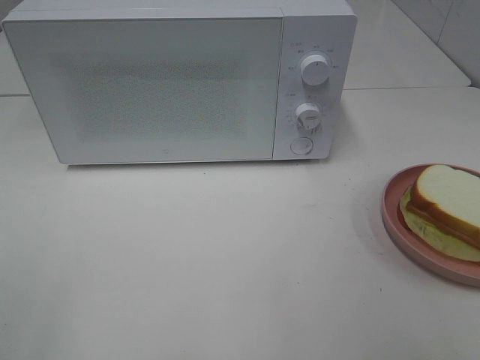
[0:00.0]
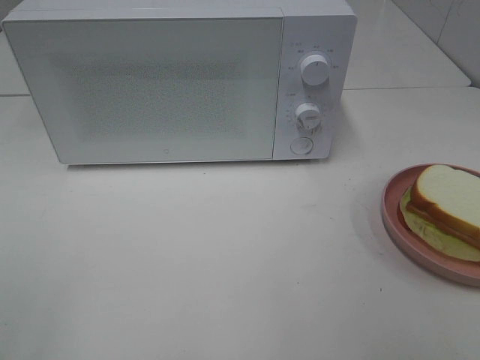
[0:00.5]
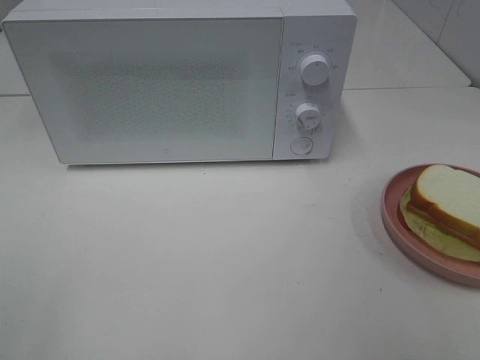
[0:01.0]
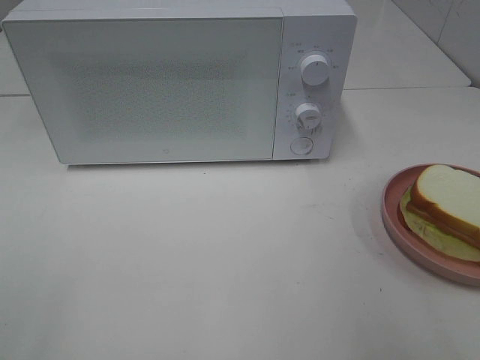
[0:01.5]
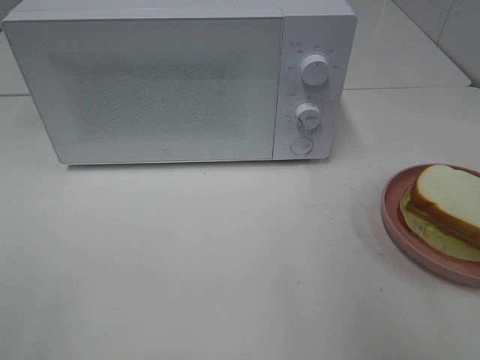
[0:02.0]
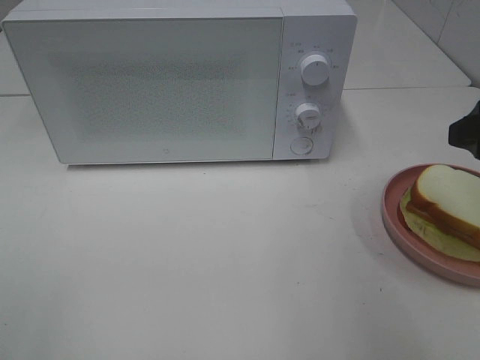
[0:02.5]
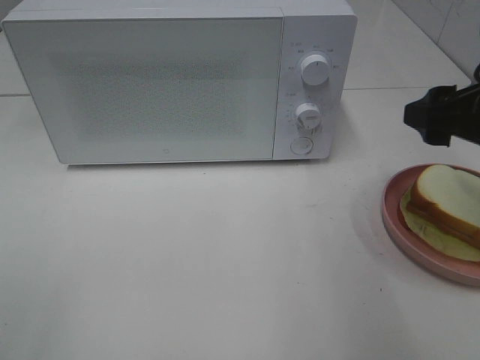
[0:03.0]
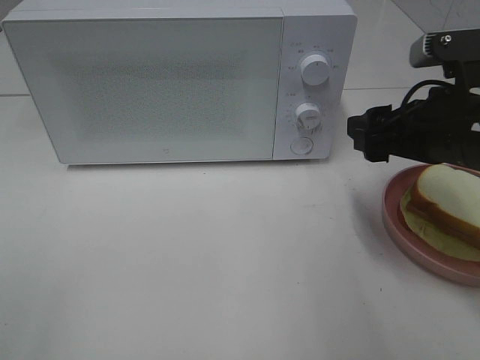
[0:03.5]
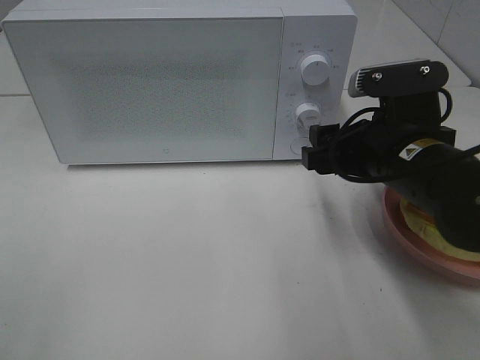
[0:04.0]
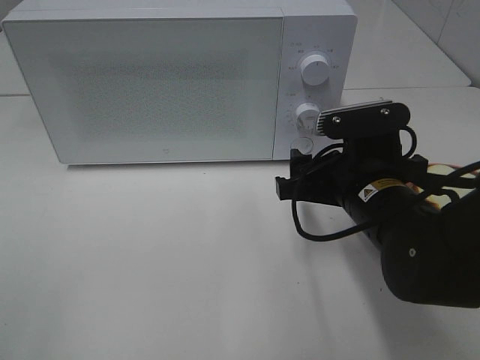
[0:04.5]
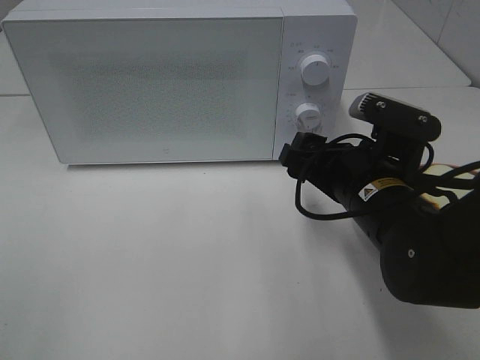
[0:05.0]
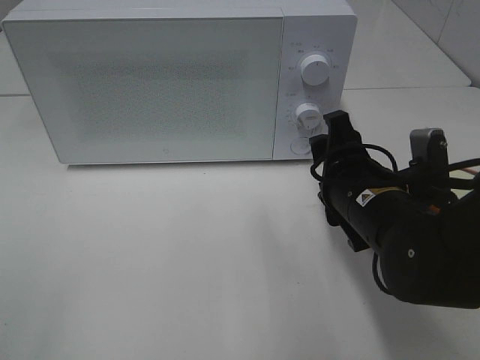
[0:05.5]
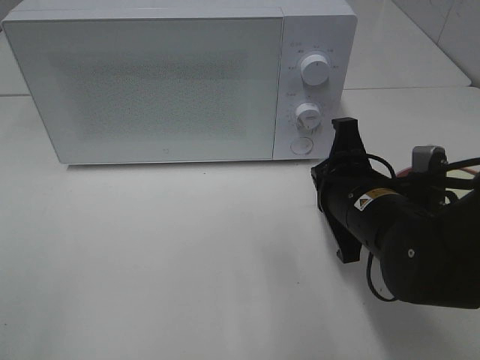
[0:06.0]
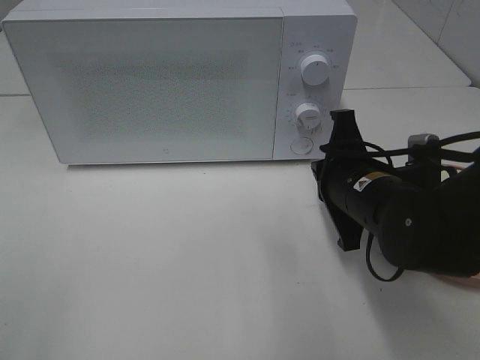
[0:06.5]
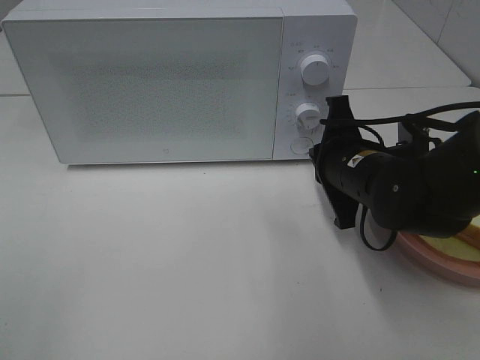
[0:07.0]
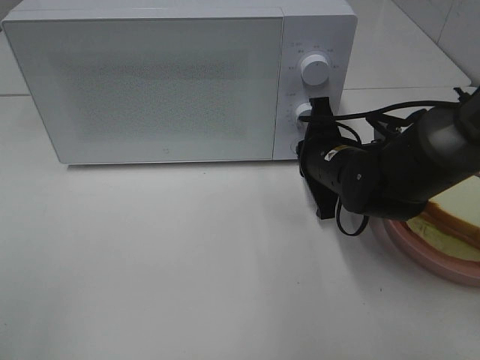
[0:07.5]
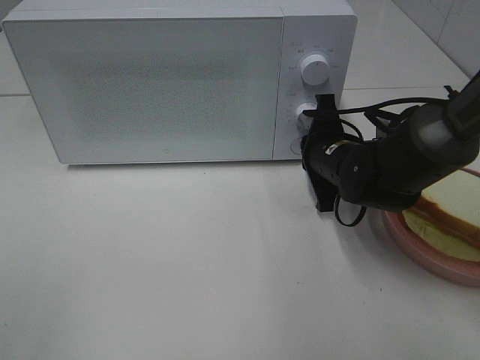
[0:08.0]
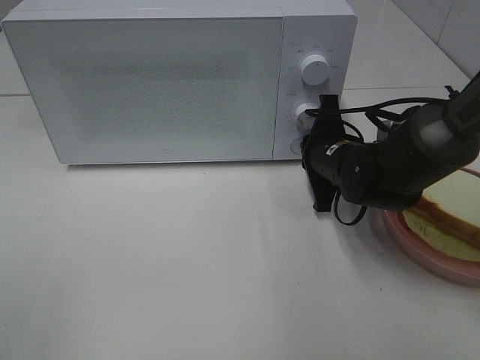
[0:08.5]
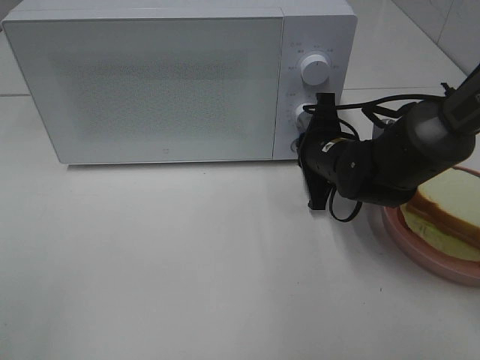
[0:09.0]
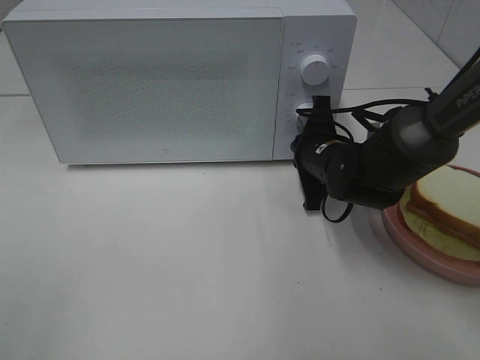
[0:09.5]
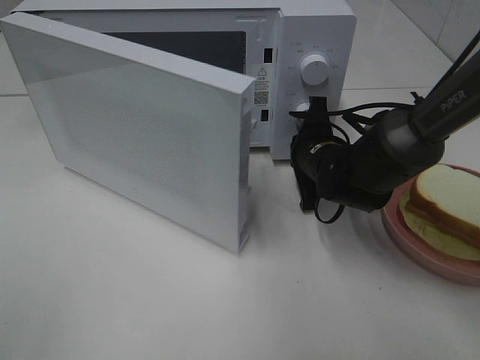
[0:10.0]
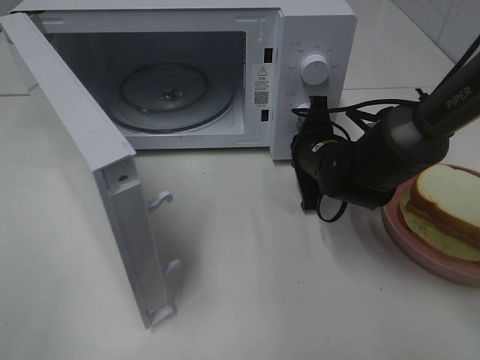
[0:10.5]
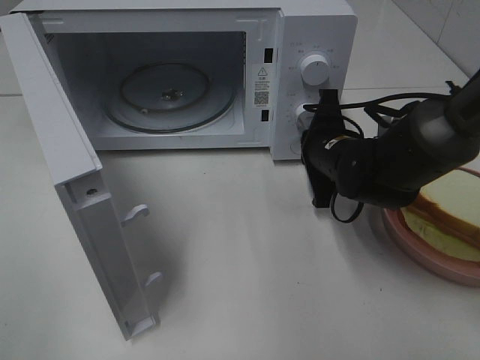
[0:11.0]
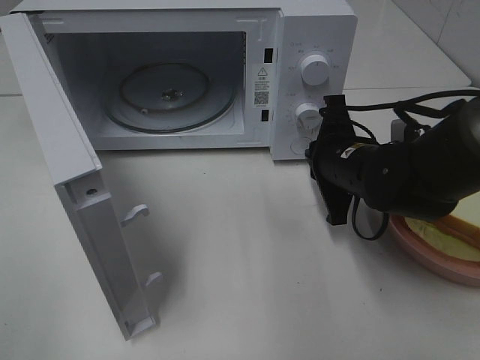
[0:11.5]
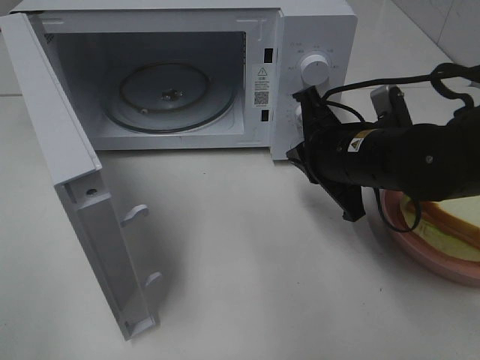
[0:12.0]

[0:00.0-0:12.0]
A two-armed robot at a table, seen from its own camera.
Task of the whole recording: Heat Sandwich.
Step, 0:00.0 to 0:11.0: Right hand: press the switch.
0:02.0 to 0:04.0: The right gripper goes some 20 cm to the left, downward and forward.
0:04.0 to 0:06.0: The right gripper changes place by roughly 5 cm, and closes its fingers.
0:06.0 to 0:08.0: The right gripper travels forward by about 10 cm.
0:10.0 to 0:12.0: The right gripper heads backward and upward, covering some 10 cm.

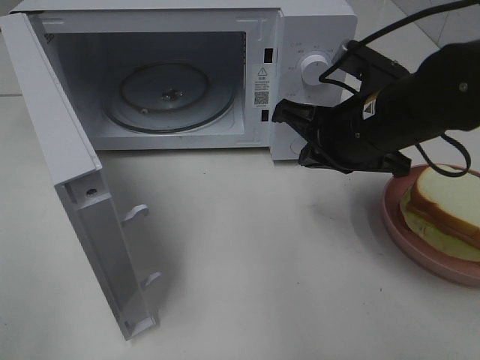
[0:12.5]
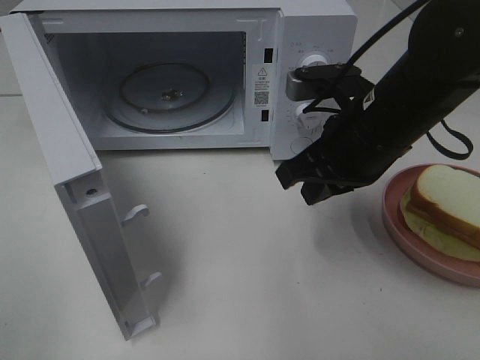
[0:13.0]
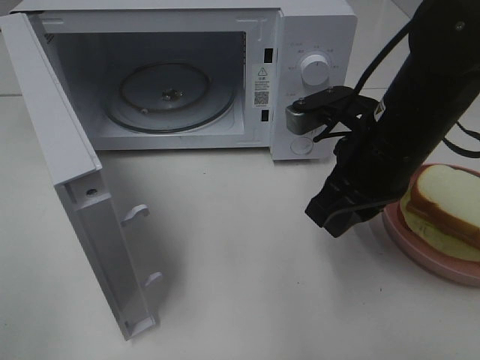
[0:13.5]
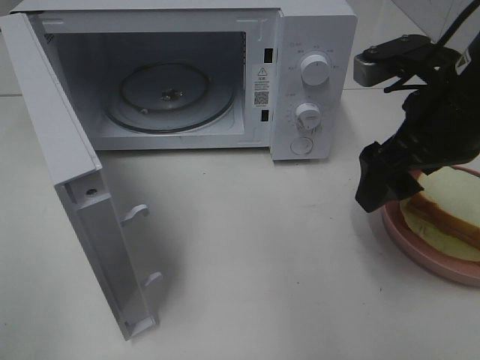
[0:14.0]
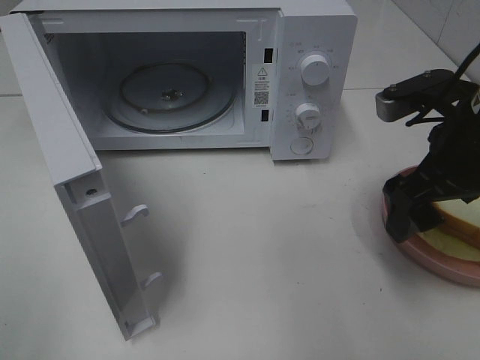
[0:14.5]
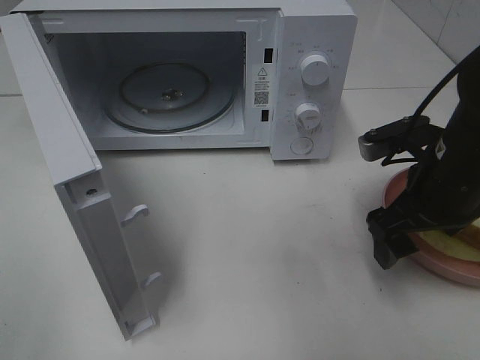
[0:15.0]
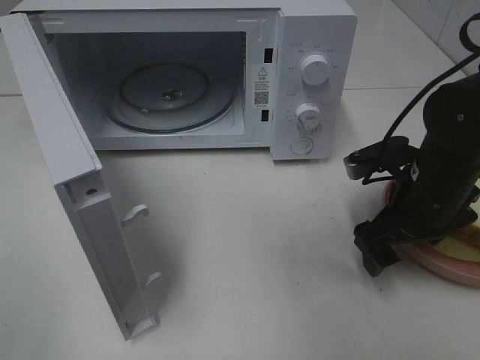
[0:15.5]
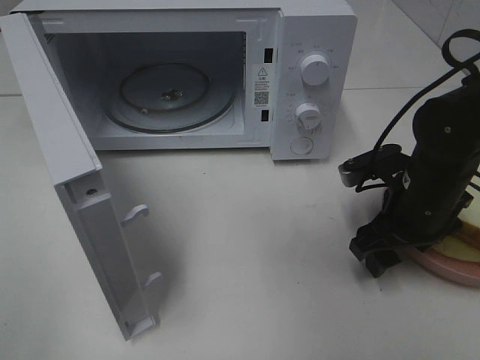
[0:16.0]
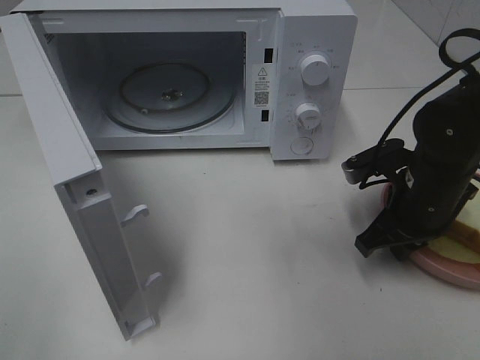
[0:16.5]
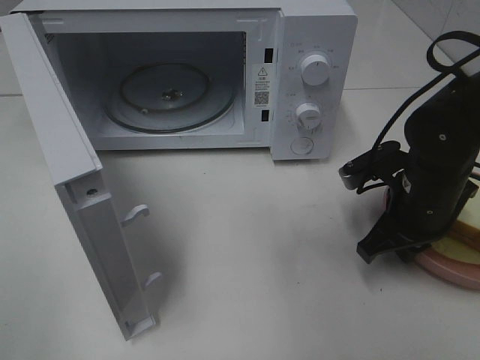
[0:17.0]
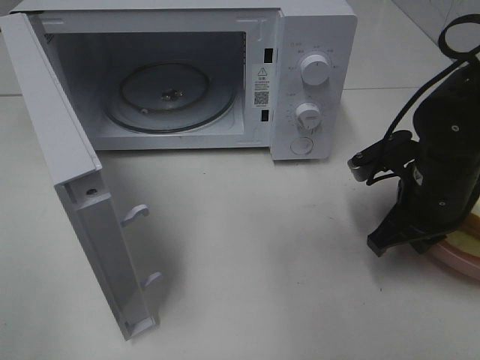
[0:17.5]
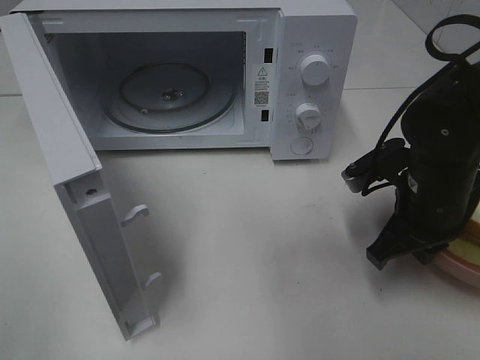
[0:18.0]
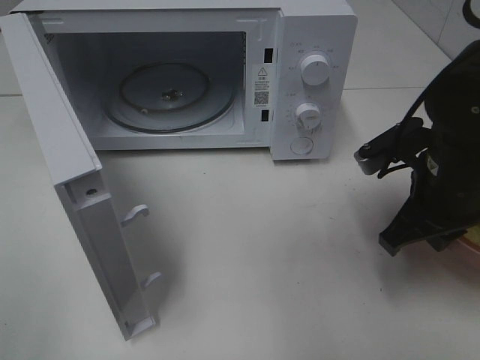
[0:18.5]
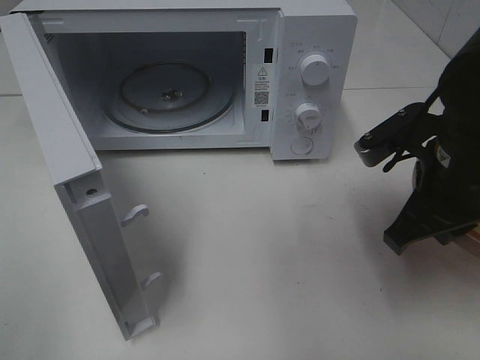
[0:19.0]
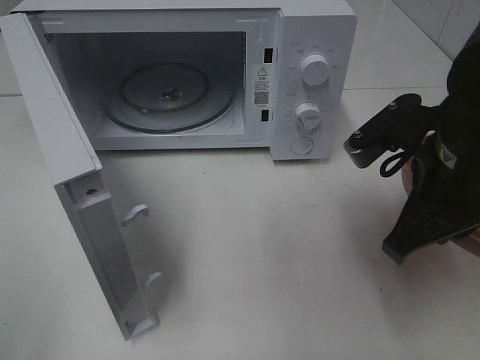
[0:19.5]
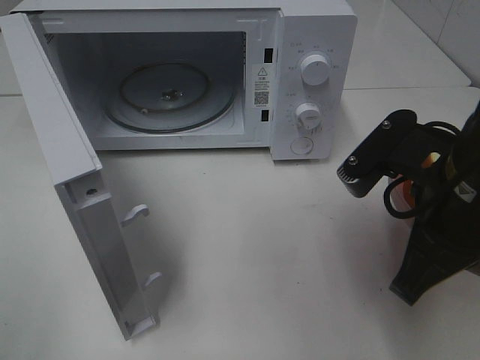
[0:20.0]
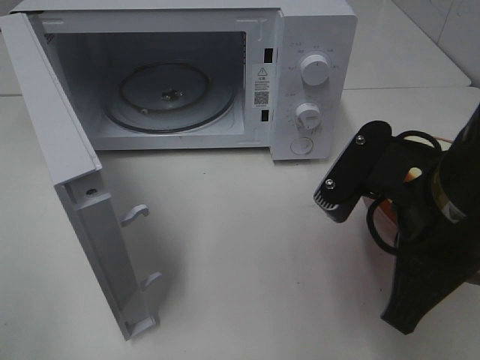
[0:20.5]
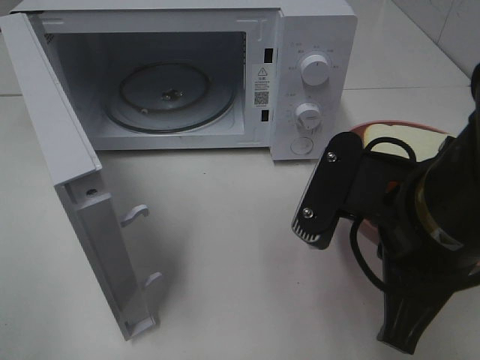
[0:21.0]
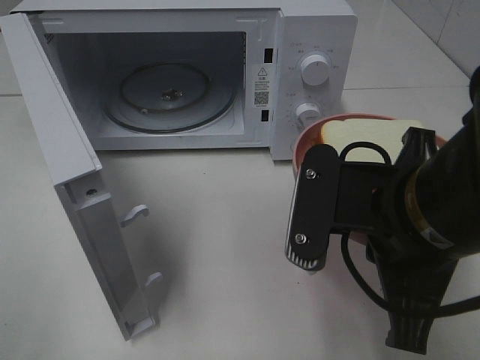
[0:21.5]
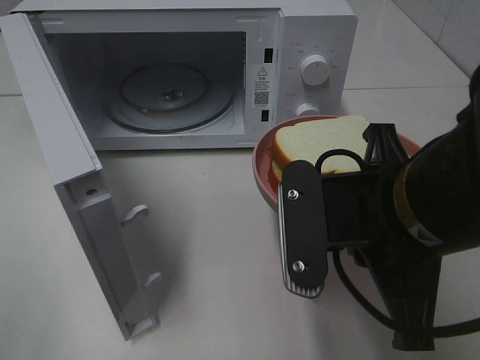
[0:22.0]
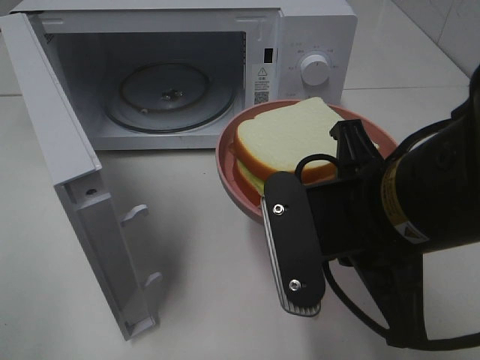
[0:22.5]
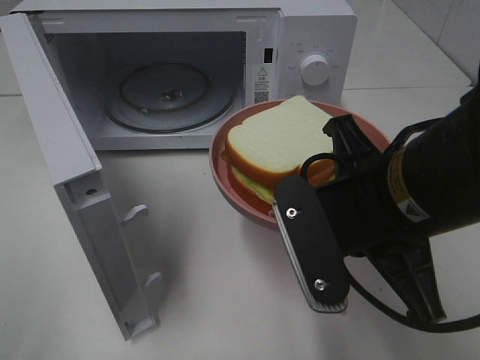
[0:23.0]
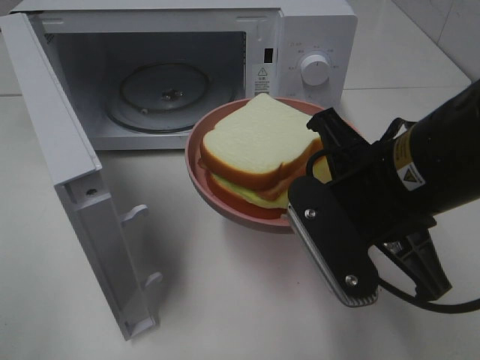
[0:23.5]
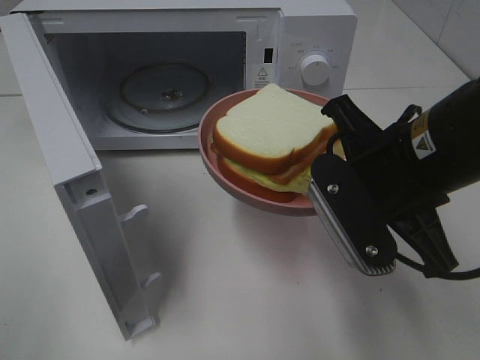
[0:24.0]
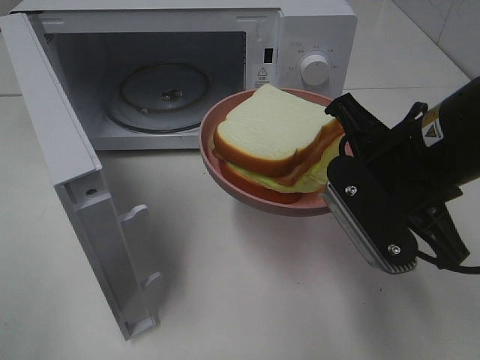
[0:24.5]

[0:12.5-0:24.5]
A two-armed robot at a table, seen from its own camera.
Task of the whole recording: Heat Sandwich.
Step, 0:12.5 to 0:16.5: Right hand: grab the plate with the sandwich.
0:12.5 to 0:14.5: The right gripper is displaced to the right by approximately 10 cm, and opens its fingers.
0:14.5 to 0:16.5: The right gripper heads downward, covering about 10 cm, and closes.
0:16.5 to 0:18.5: The right gripper goes roughly 5 cm upward.
0:18.5 to 0:20.5: The right gripper travels backward, to the left and upward by roughly 10 cm.
0:22.5 to 0:24.5: The right gripper moves forward, roughly 5 cm.

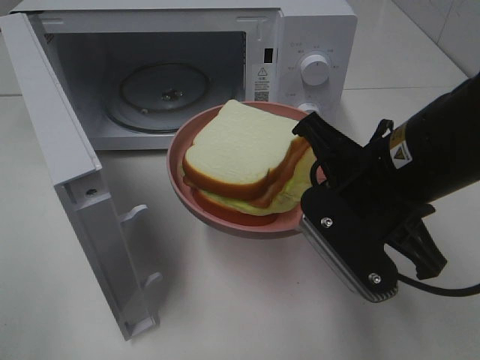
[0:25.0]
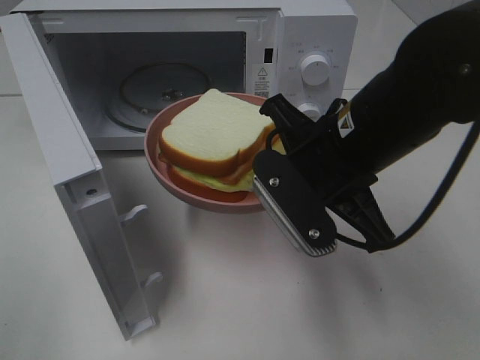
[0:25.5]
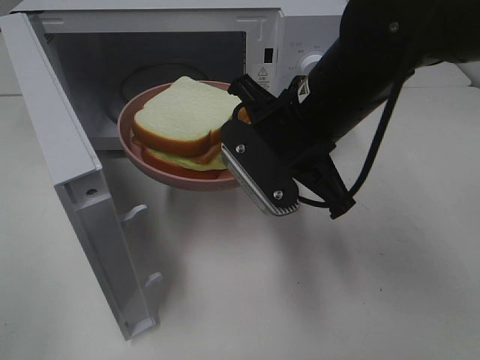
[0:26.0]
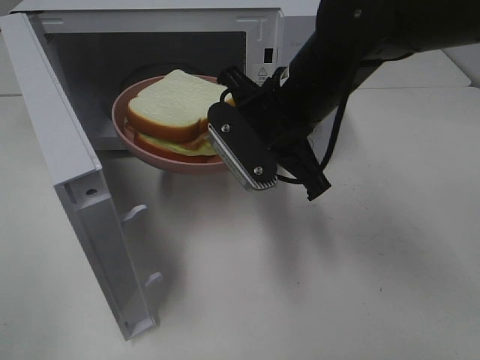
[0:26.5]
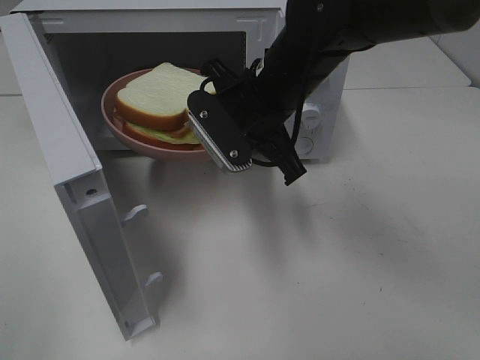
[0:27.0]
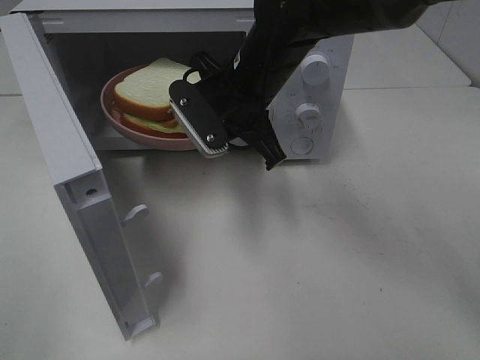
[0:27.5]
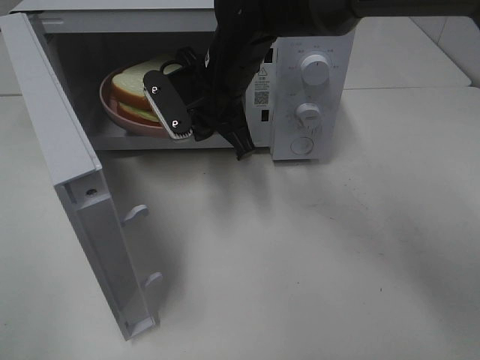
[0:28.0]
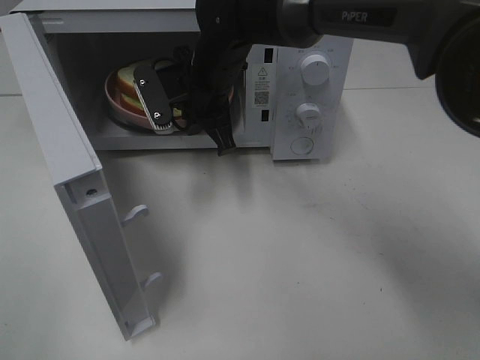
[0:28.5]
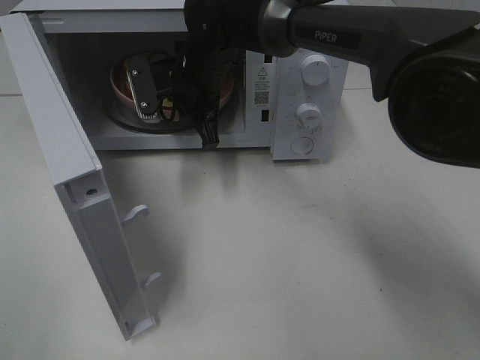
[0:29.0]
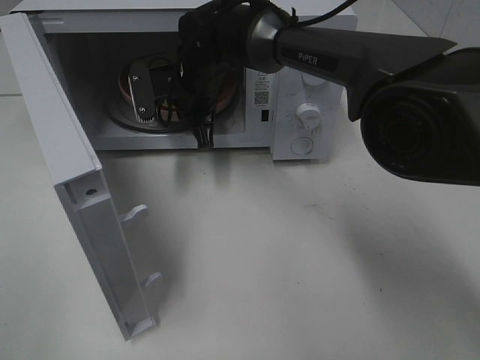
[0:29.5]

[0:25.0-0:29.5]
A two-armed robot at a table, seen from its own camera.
Task of the whole recording: Heat Sandwich.
0:25.0 to 0:27.0: The right gripper moves forward and to the left, about 15 cm.
0:27.0 to 0:29.5: The right gripper is displaced forward, to the left and downward by some 15 cm.
